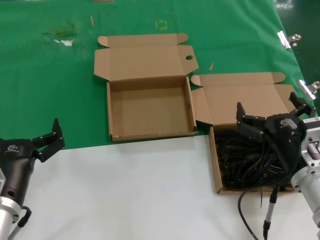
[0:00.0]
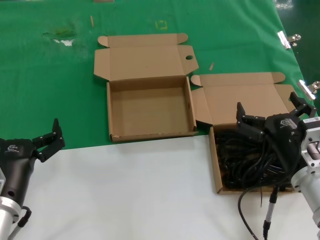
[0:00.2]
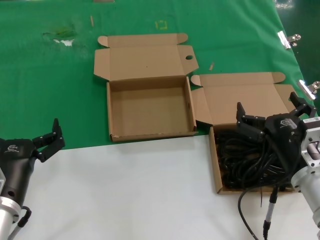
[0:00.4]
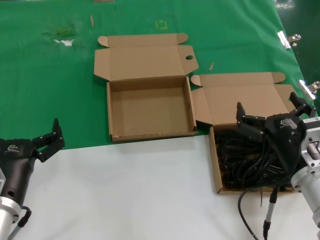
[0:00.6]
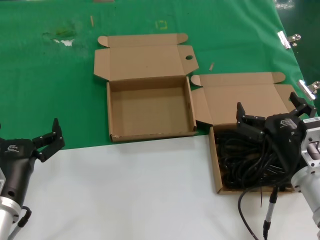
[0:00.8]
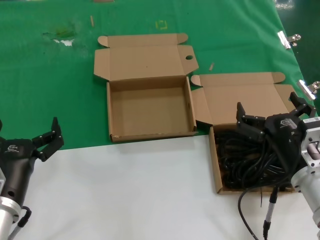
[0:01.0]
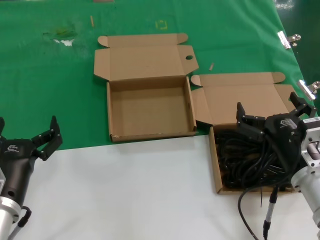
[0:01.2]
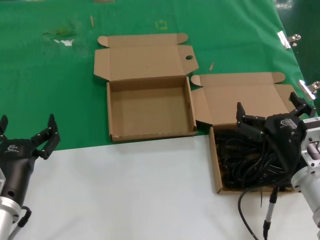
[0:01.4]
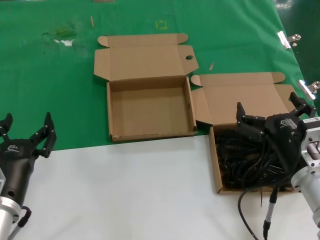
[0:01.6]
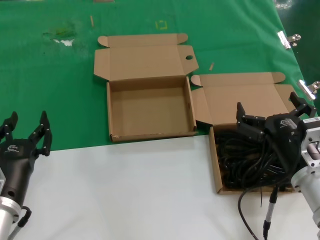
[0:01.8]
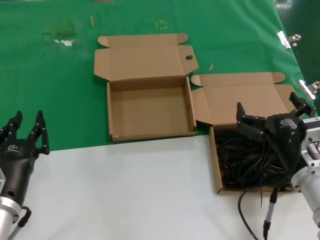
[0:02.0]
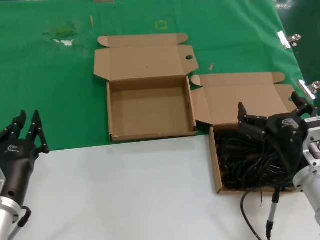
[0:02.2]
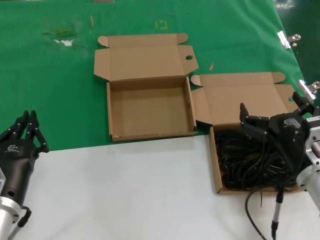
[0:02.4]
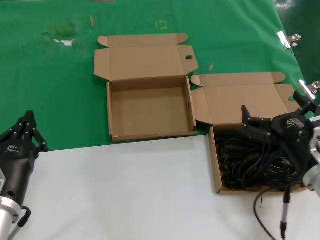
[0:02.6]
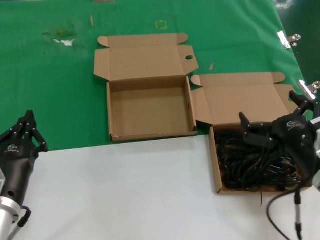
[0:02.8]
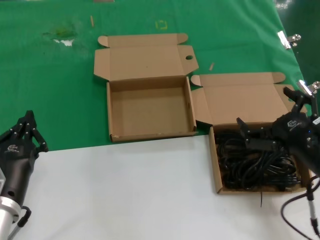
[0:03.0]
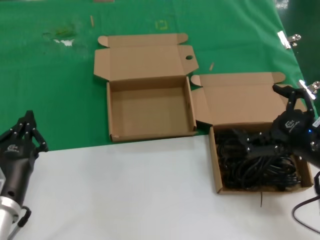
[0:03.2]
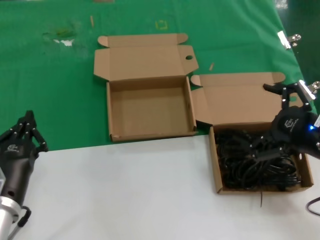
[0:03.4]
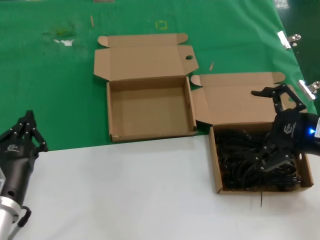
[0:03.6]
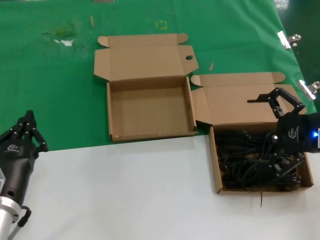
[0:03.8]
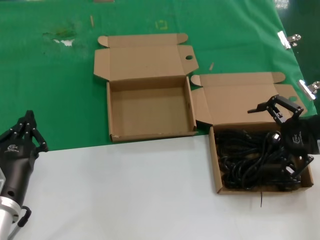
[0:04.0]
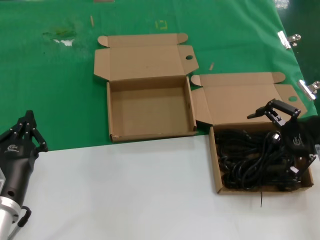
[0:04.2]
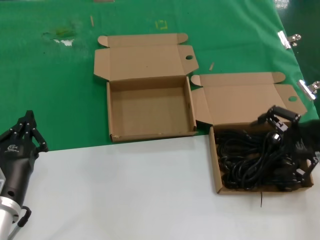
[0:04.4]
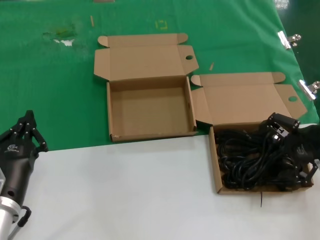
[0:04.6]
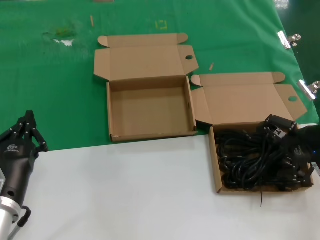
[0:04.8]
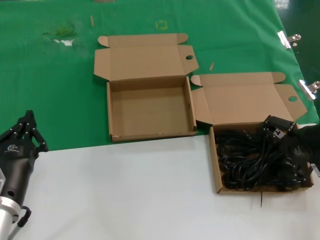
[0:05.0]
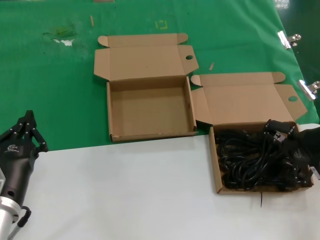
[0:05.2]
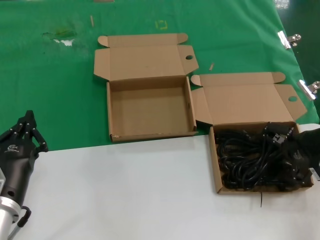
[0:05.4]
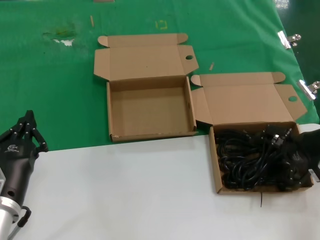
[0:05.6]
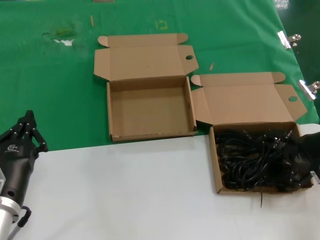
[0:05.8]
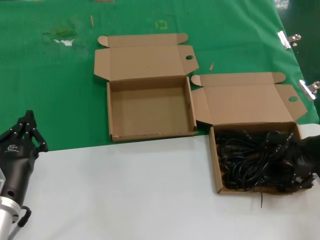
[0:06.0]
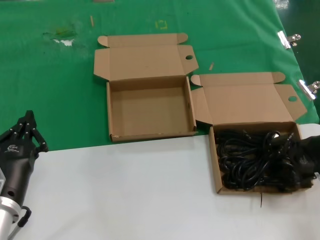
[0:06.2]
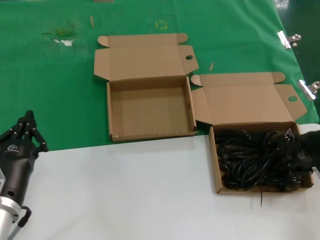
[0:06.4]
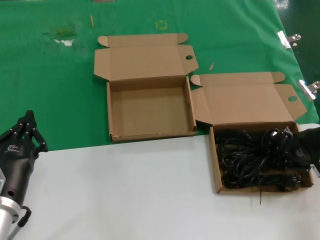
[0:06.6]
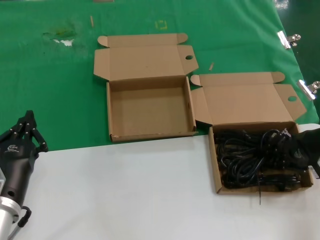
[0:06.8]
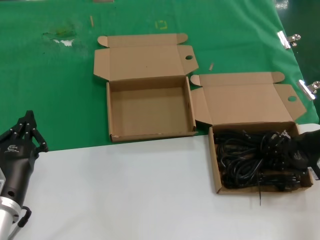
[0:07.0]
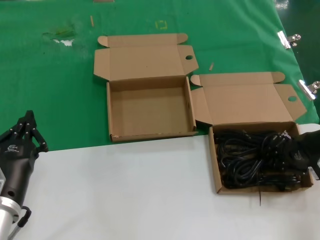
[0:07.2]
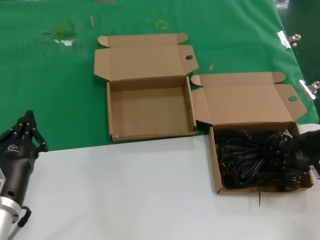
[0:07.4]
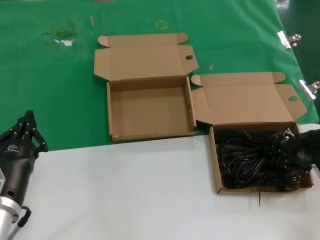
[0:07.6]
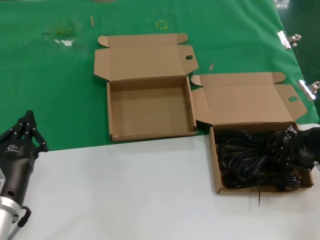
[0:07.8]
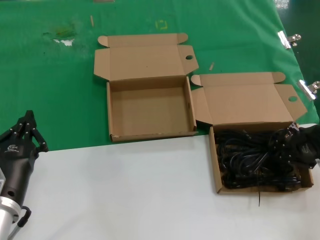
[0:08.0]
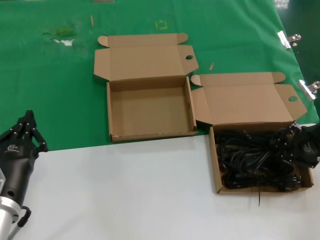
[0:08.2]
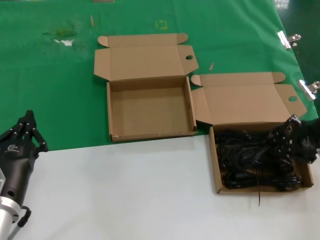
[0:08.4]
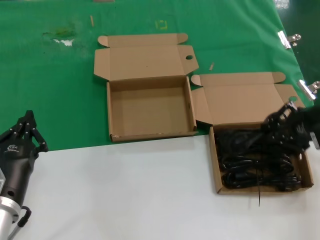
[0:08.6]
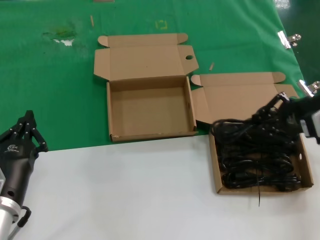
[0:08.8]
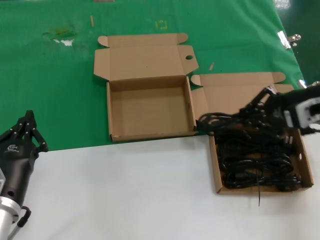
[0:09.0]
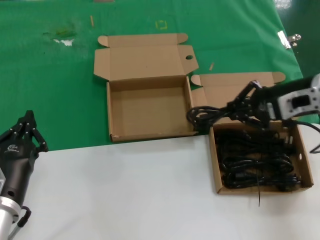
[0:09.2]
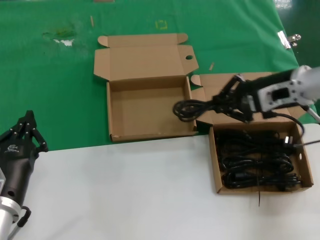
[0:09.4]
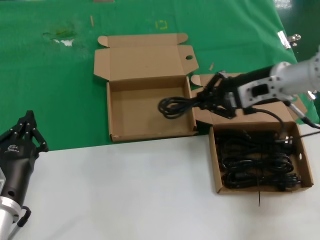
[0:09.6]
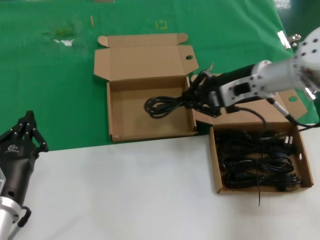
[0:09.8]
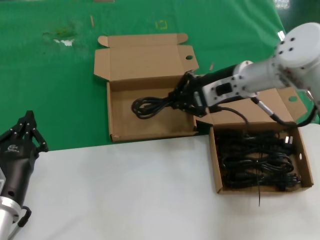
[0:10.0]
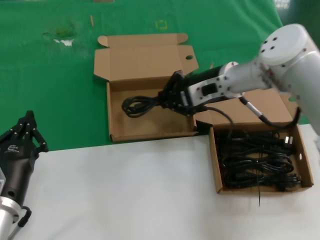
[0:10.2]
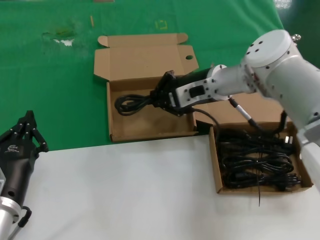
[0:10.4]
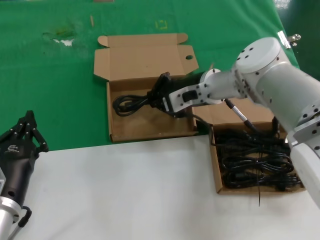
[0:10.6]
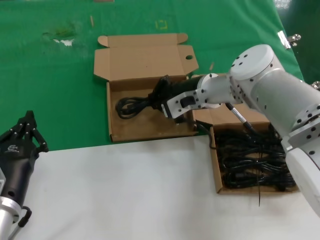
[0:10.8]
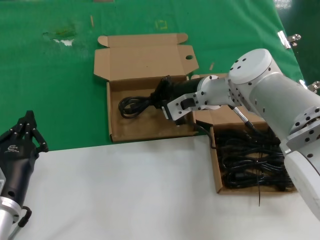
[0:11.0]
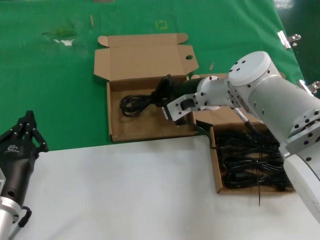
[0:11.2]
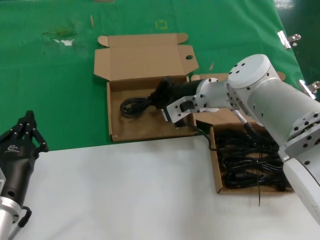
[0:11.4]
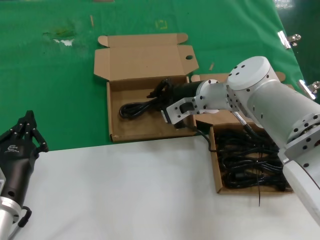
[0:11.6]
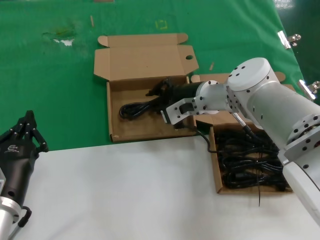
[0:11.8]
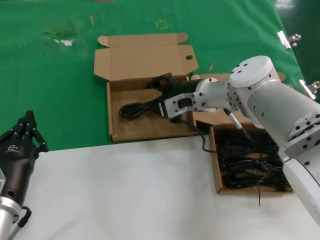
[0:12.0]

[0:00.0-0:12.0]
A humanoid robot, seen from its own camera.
Task of the whole recording: take the parts from the box containing them and put them into an empty box.
Step, 0:00.0 to 0:06.8: Grasp the data cable.
Step, 0:07.0 to 0:11.8: Place the data cable in the another box.
0:00.0 to 0:01.6: Neither hand changes place.
0:01.6 to 0:03.0: The right hand is displaced to the right by approximately 5 cm.
0:03.0 to 0:04.4: The right hand shifts some 15 cm upward, forward and to the right.
0:04.4 to 0:06.0: The right hand heads downward, covering about 5 cm.
0:06.0 to 0:07.6: The two hands keep their place.
0:07.6 to 0:09.0: The right hand shifts about 5 cm upward.
0:09.0 to 0:10.4: The right hand heads to the left and forward, covering about 20 cm.
0:10.4 to 0:12.0: The hands move only a little.

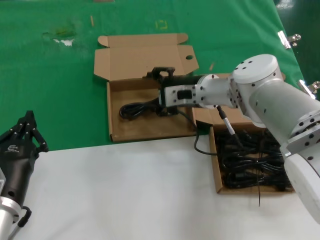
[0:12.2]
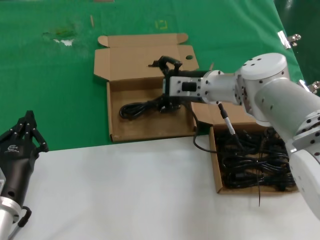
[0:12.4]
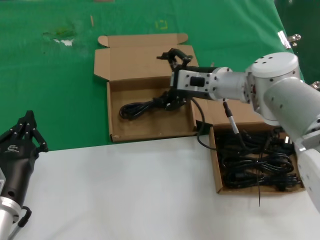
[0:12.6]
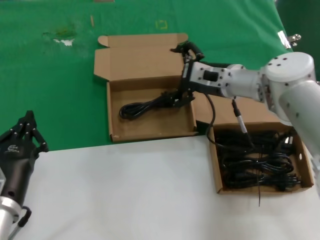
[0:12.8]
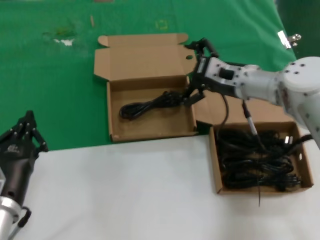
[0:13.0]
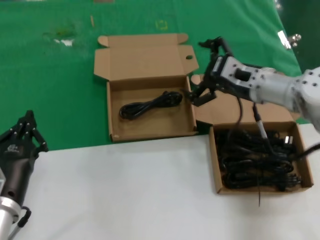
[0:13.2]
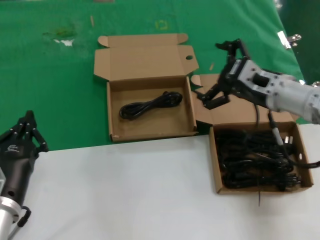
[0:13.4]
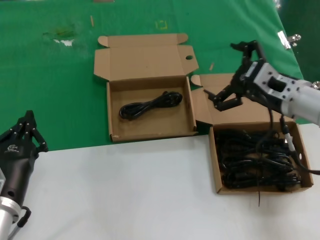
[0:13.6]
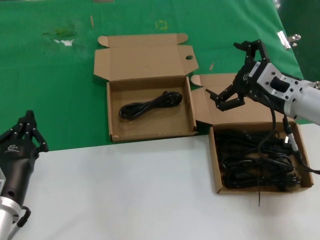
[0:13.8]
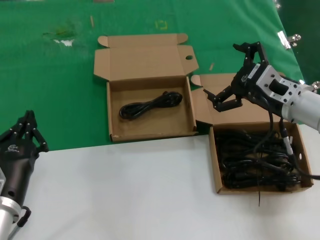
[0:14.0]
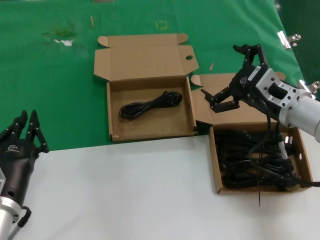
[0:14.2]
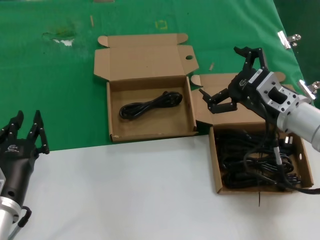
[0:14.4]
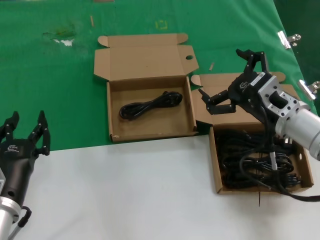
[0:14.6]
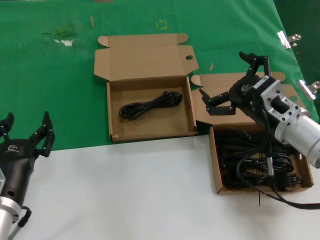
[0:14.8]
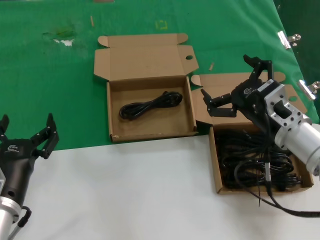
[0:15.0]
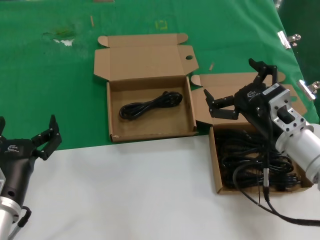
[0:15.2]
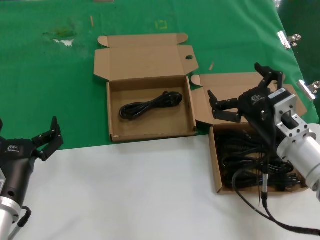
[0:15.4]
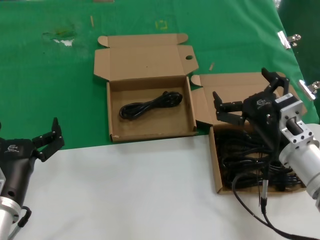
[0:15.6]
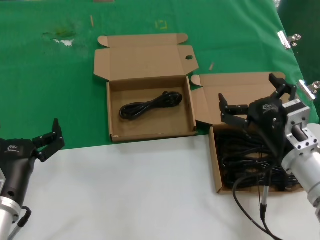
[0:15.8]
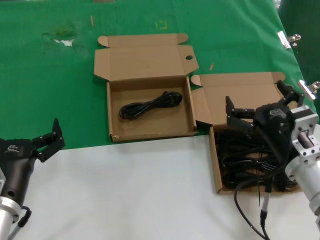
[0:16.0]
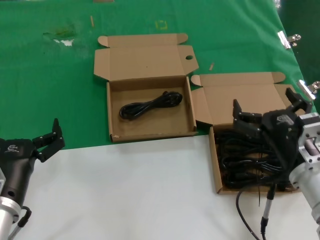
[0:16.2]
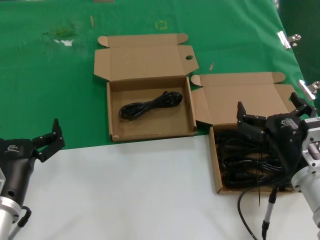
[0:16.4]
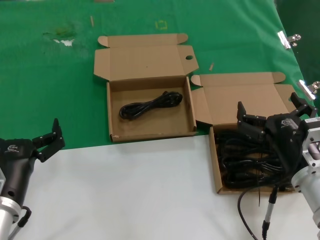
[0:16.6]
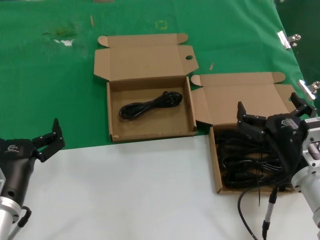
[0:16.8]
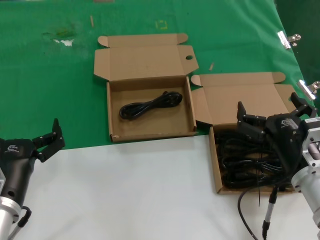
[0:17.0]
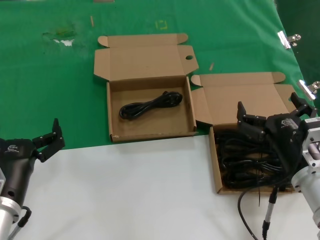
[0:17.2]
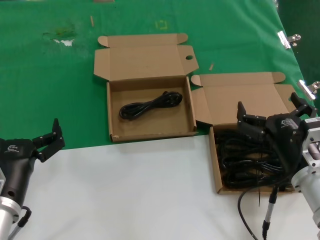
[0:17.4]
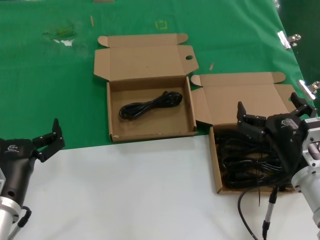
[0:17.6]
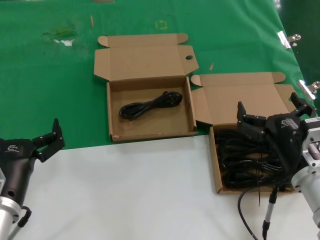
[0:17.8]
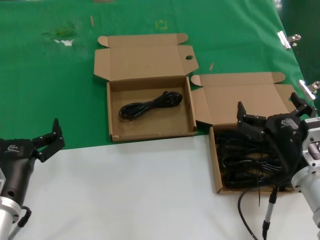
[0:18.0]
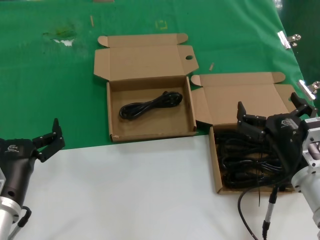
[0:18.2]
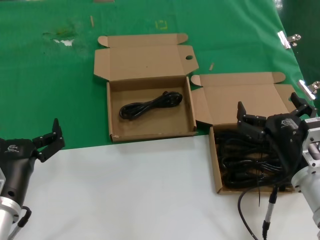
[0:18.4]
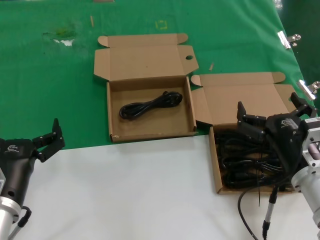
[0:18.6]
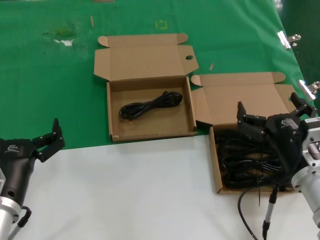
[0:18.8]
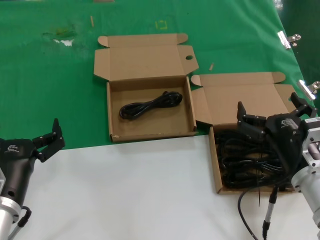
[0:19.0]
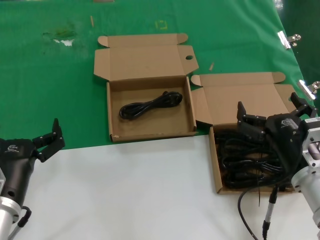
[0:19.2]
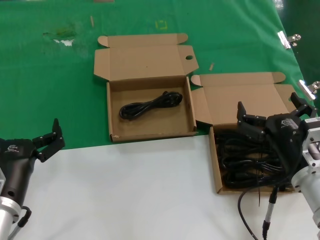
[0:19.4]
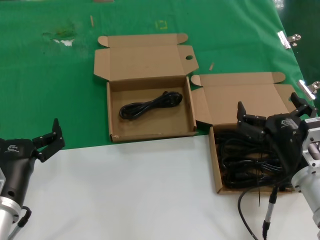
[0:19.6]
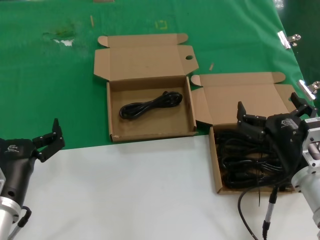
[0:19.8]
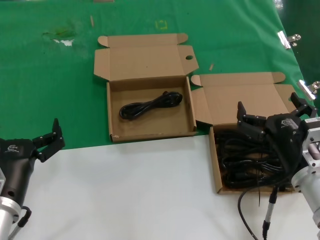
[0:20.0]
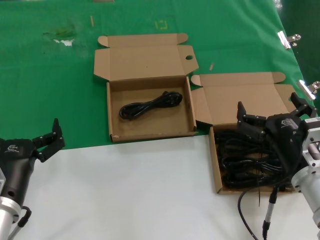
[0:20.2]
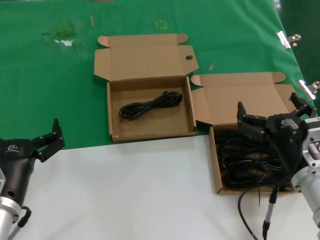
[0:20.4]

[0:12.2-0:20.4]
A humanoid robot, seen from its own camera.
Task of the whole recording: take the parts from the box containing them and put them into an empty box.
0:12.2 to 0:13.8: The right hand shifts roughly 20 cm to the right and backward.
0:13.8 to 0:15.4: The right hand travels backward and downward by some 10 cm.
0:15.4 to 0:17.2: The right hand heads backward, covering roughly 5 cm.
0:17.2 to 0:20.4: The two hands keep their place.
